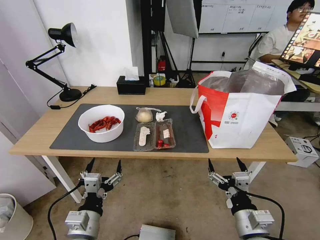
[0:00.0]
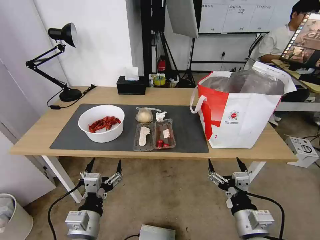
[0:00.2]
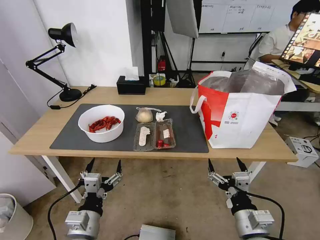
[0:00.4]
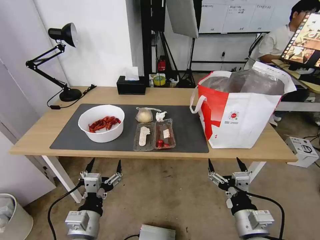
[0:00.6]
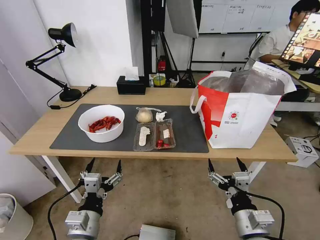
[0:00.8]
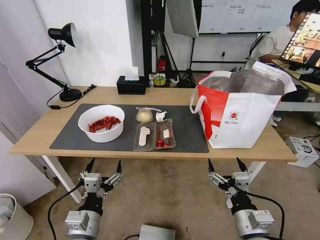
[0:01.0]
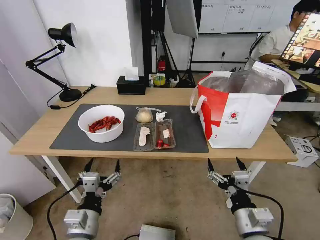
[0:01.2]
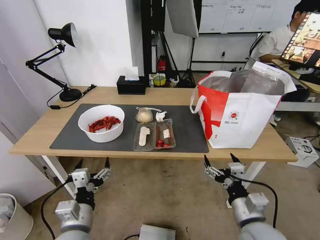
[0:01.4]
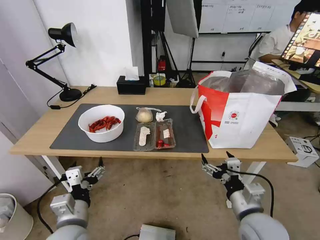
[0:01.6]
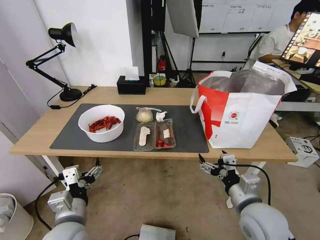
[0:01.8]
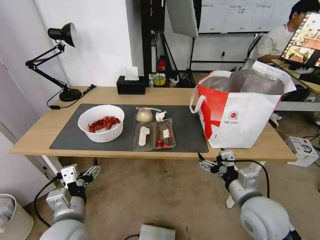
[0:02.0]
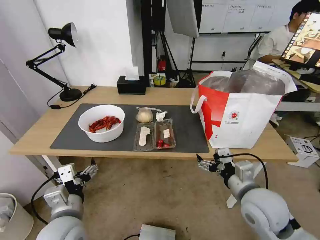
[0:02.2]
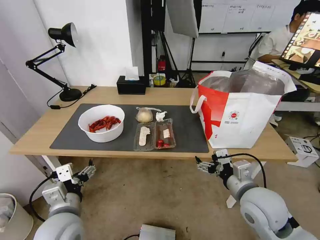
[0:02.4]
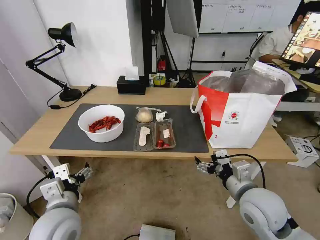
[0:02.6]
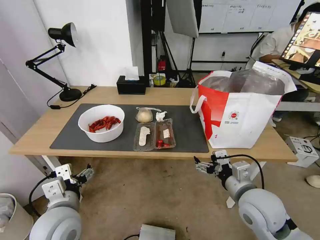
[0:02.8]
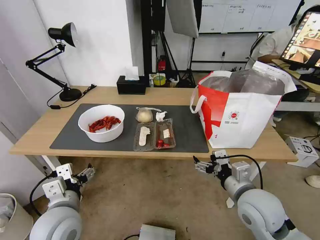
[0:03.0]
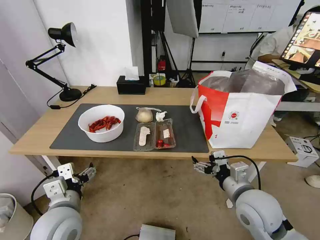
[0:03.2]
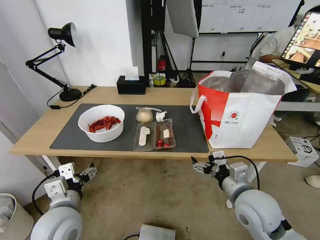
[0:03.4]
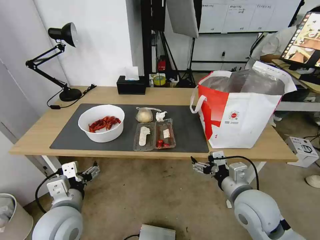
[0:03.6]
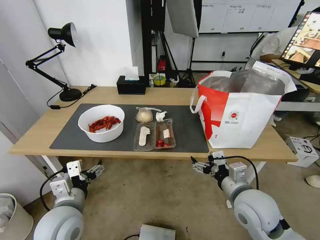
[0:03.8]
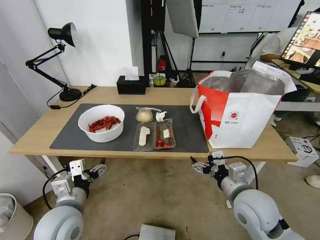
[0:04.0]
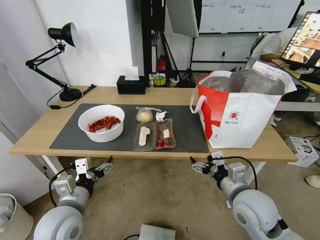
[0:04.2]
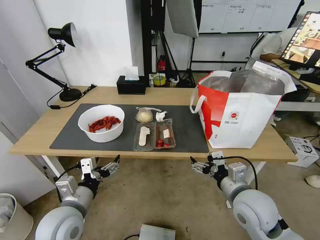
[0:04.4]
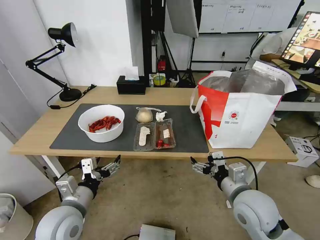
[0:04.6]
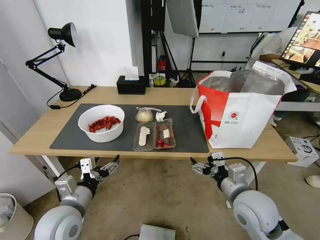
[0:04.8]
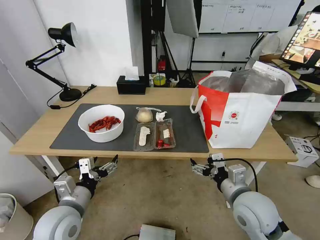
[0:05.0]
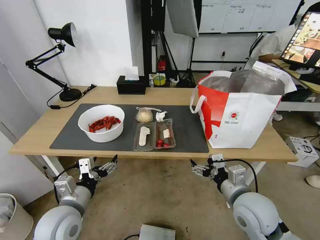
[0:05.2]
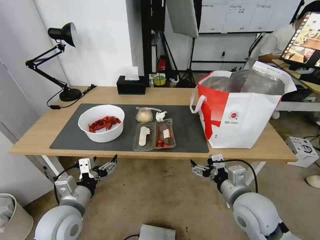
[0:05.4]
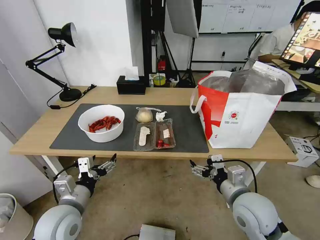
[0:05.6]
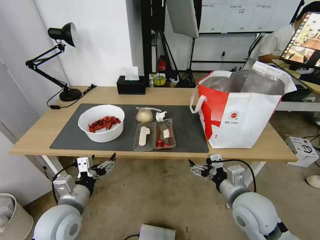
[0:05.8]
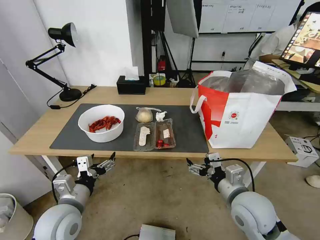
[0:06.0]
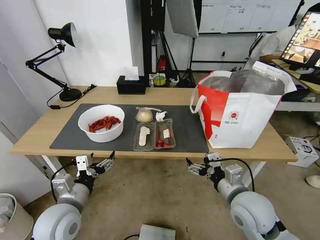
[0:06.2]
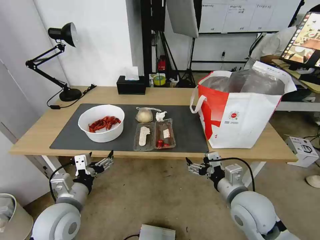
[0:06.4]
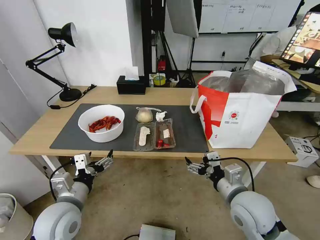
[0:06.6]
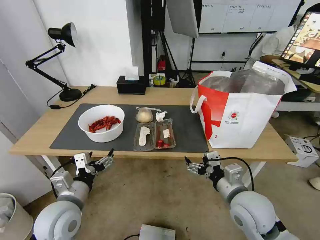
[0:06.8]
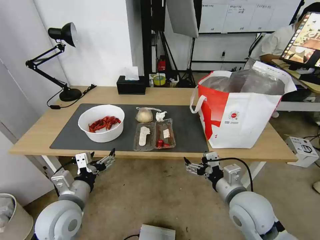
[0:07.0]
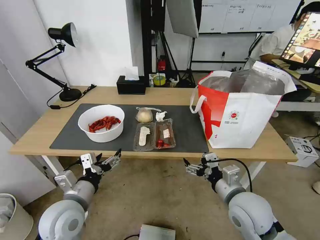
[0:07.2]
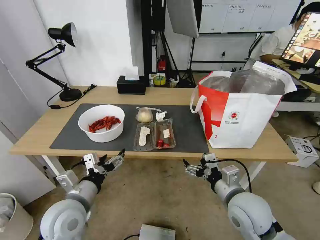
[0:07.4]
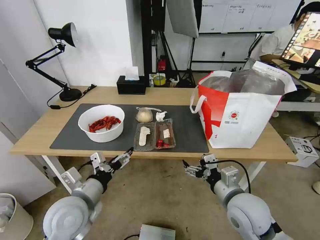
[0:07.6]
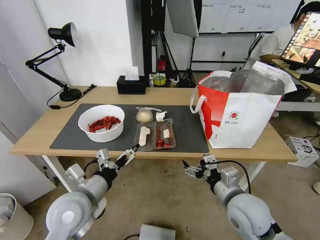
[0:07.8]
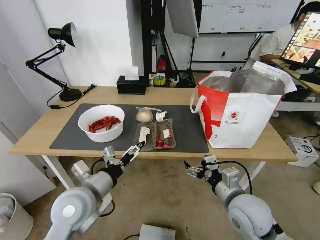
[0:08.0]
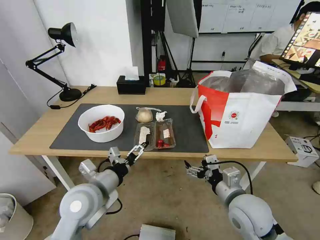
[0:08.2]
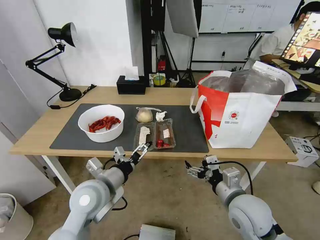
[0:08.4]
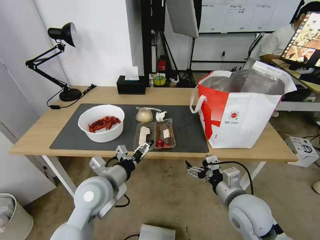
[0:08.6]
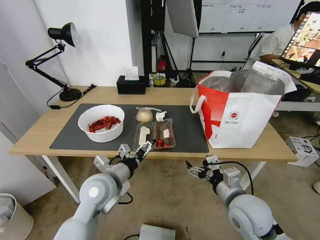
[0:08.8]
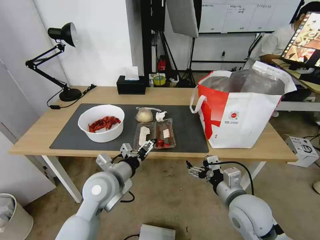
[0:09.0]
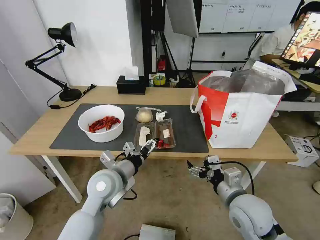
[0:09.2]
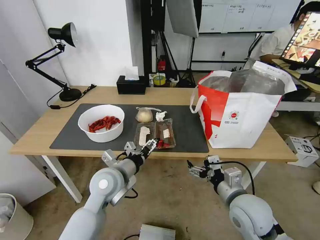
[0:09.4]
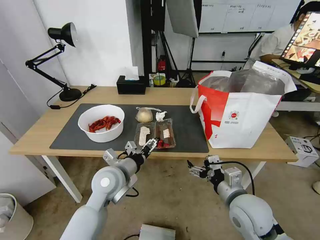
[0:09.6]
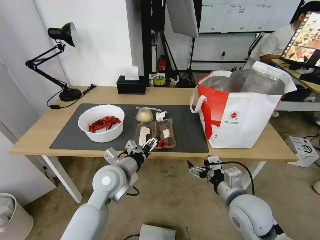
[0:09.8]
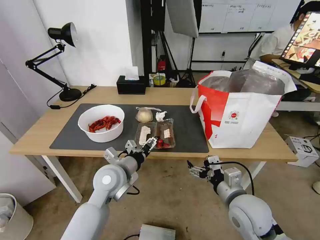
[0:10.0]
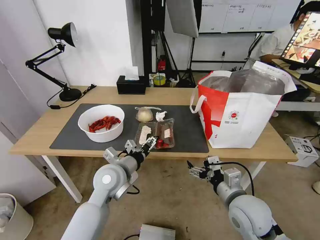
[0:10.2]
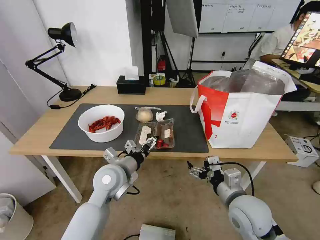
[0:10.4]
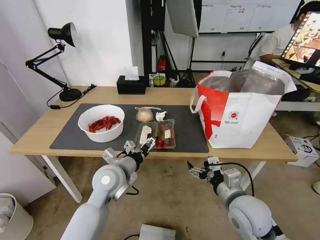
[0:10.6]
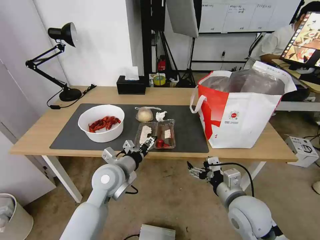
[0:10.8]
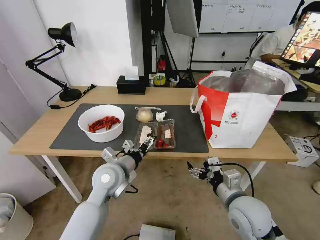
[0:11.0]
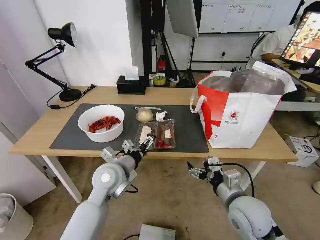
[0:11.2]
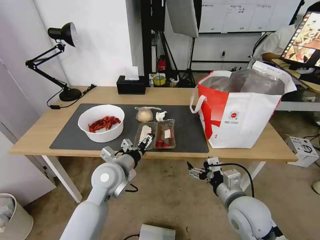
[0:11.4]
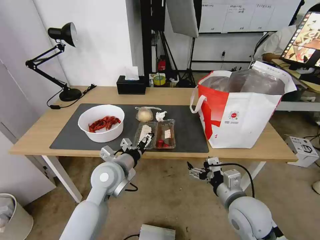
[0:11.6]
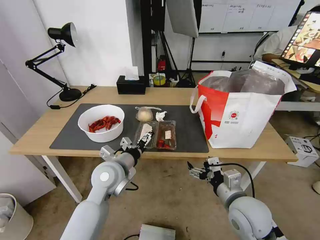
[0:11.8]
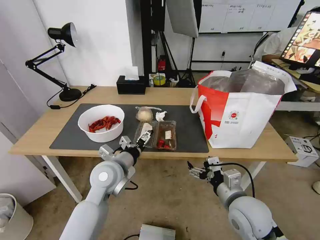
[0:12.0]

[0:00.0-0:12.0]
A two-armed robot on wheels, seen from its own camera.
Task of the whole recording: Pick up the trash from the table and place it into the takeout bag.
0:01.6 to 0:03.0: The right gripper changes place by some 5 cm. Meanwhile the left gripper moves approximately 5 cm.
0:04.4 to 0:06.0: There are only small adjustments of the grippers.
0:07.6 to 0:09.0: The left gripper heads forward and to the right, covering approximately 10 cm.
0:09.0 to 0:12.0: The grippers move only a little.

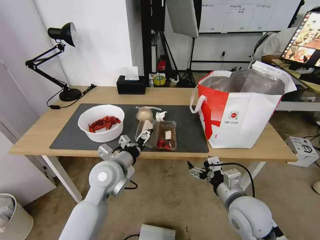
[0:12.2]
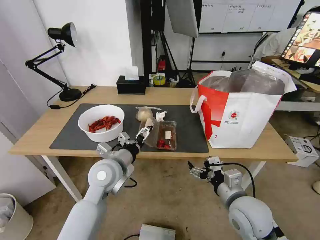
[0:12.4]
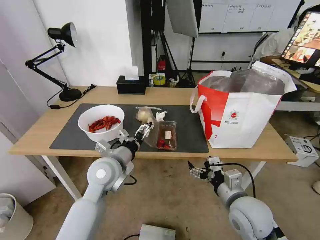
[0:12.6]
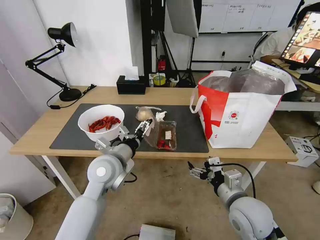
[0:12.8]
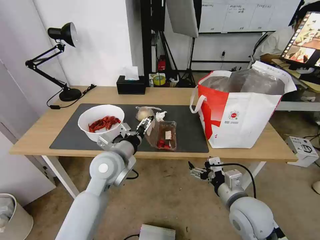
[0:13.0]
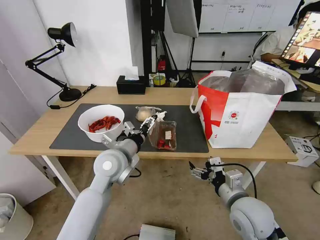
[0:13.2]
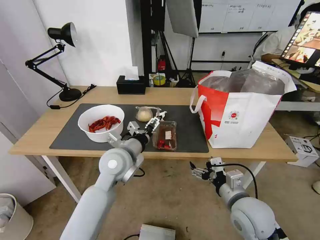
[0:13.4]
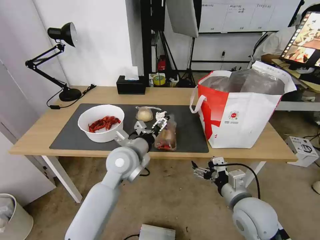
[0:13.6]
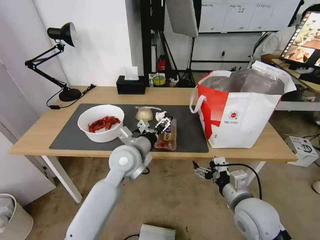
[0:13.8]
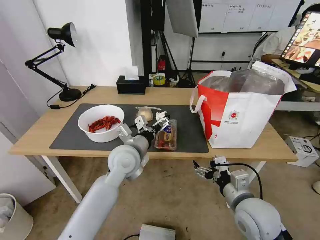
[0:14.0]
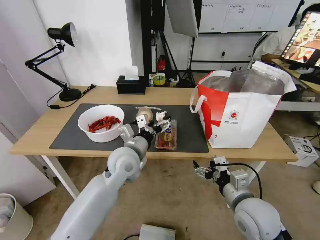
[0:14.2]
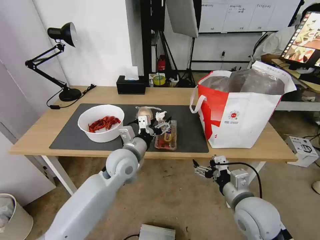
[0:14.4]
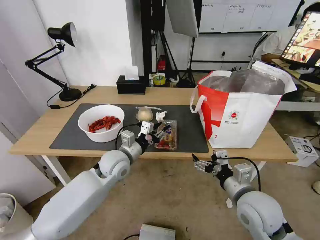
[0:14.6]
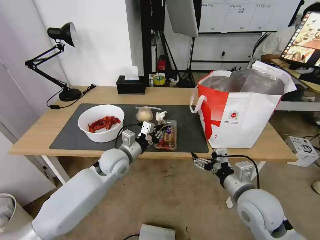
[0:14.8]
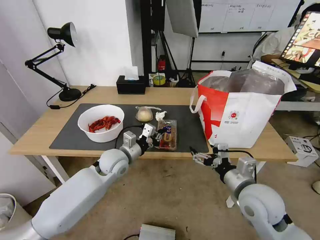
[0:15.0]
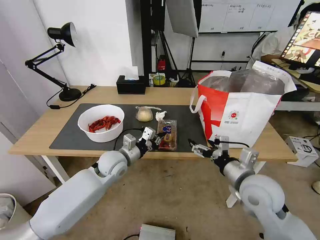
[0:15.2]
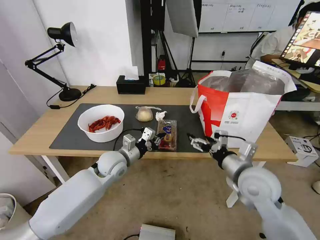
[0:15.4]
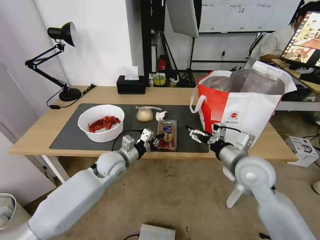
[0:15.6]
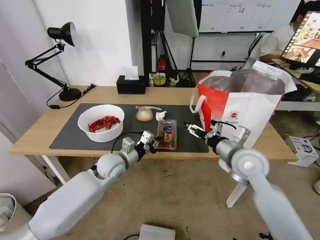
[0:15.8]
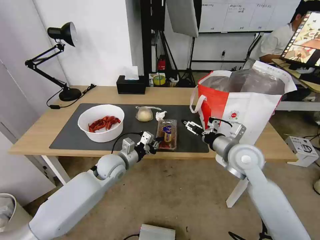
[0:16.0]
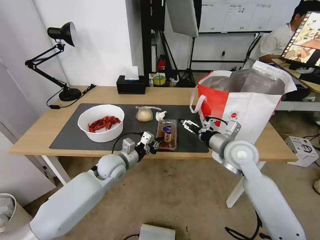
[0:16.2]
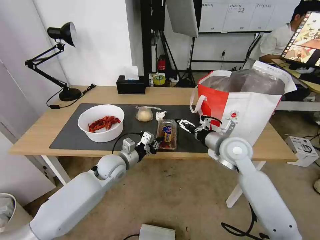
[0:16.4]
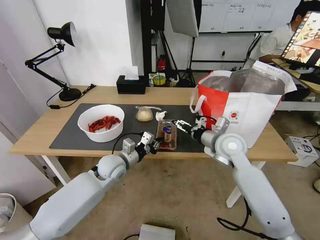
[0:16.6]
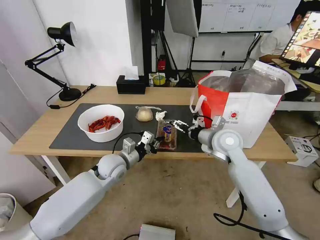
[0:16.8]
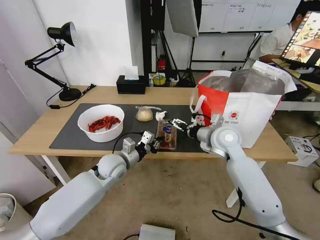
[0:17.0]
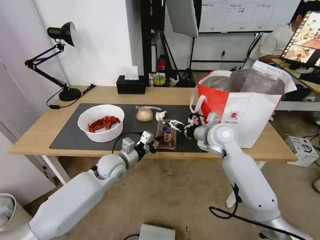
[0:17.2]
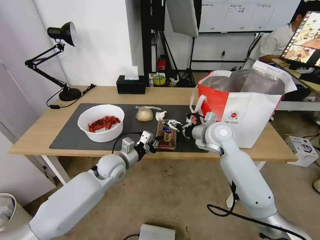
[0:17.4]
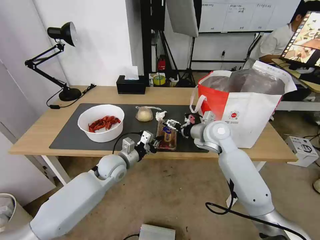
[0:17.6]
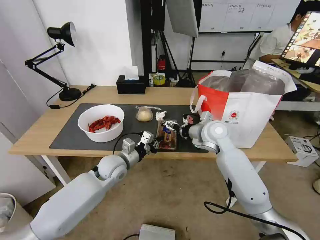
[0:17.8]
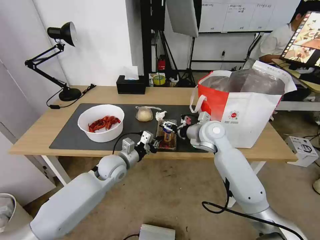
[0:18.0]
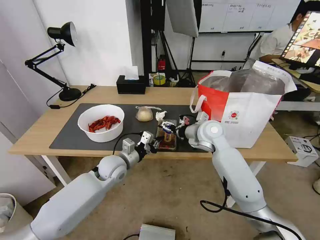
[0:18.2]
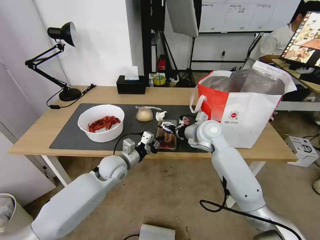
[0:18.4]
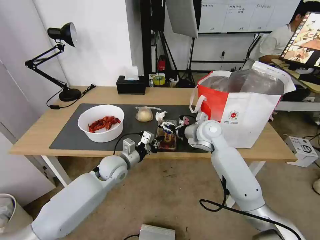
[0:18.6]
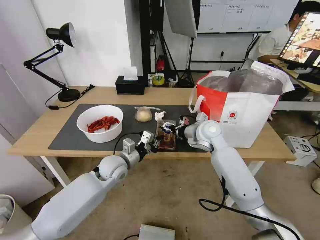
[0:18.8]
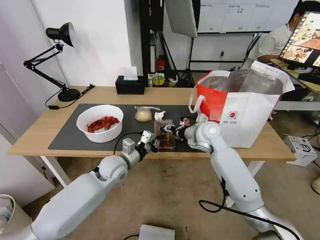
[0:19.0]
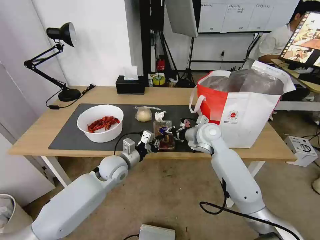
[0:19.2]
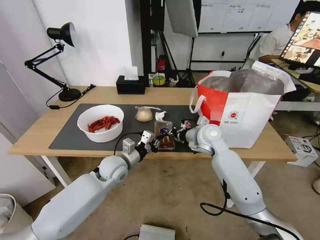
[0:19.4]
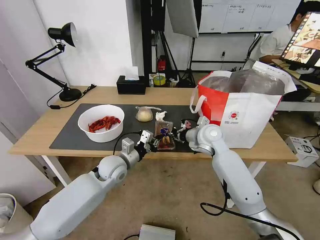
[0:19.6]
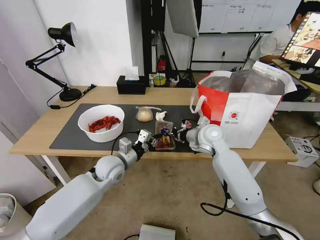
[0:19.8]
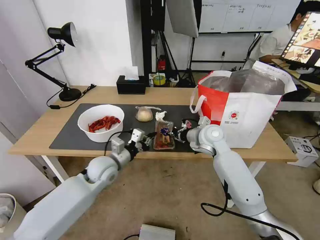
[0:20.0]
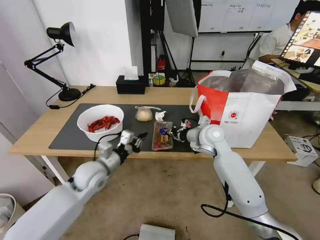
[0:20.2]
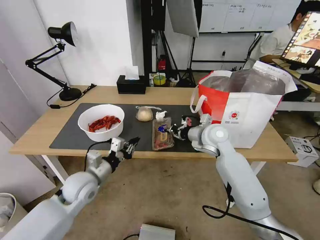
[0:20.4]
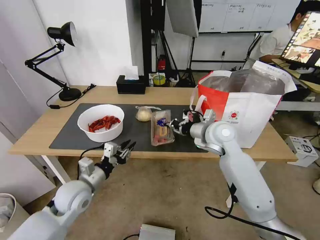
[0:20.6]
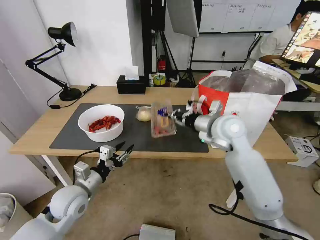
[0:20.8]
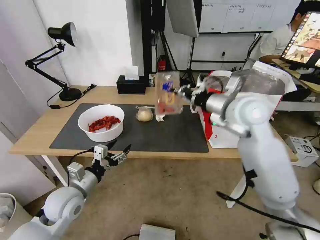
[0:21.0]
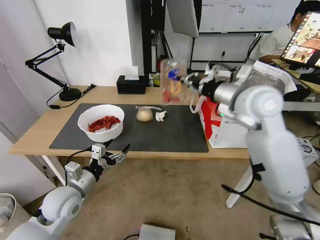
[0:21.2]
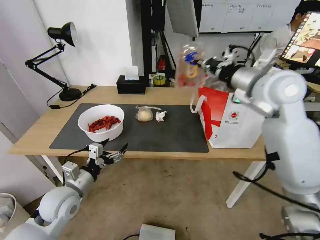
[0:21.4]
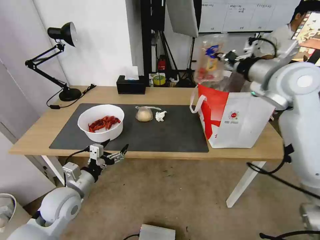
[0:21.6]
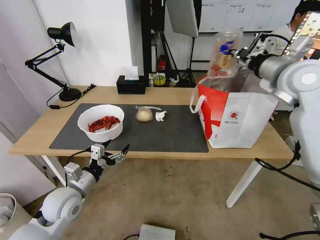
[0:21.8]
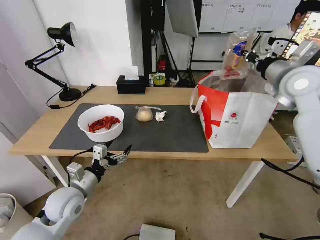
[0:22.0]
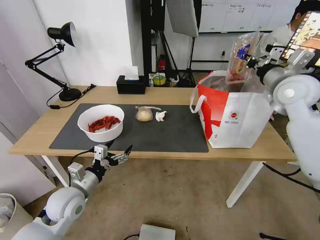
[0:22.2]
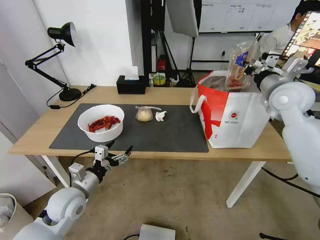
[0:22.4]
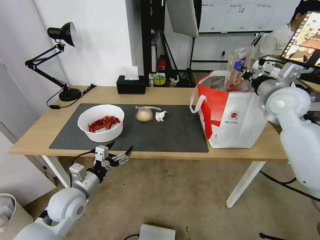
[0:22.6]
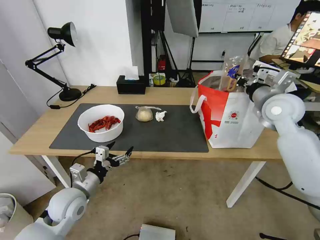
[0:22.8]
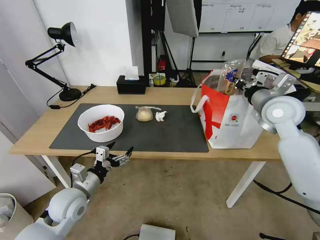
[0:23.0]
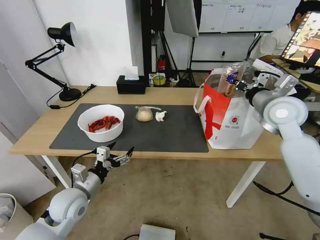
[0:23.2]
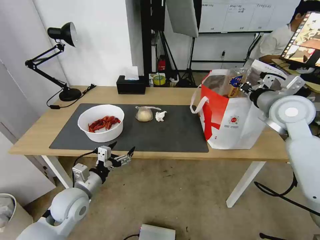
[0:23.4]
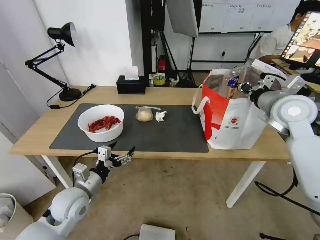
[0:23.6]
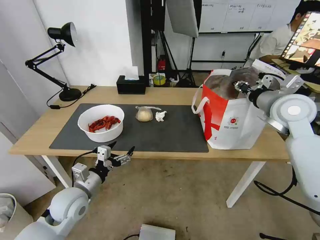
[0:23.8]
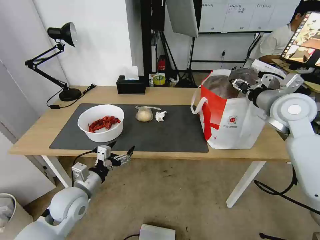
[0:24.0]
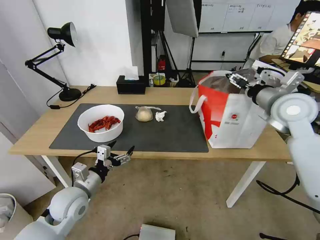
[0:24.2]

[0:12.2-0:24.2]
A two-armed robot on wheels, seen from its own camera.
Task of the whole recording: Pick up the trash from the table and place it into the takeout bag.
0:12.2 to 0:13.8: The left gripper travels to the right by approximately 5 cm.
0:13.8 to 0:15.2: The left gripper travels downward and to the left by roughly 10 cm, and closes. The right gripper changes place by about 5 cm.
0:15.2 to 0:16.6: The right gripper travels forward by some 15 cm.
0:16.6 to 0:18.2: The right gripper moves forward, some 5 cm.
0:18.2 to 0:19.8: The right gripper closes up.
0:19.8 to 0:21.2: The right gripper travels upward by approximately 20 cm. The left gripper moves backward and to the left, approximately 15 cm, and opens its fingers.
0:21.2 to 0:22.6: The right gripper shifts approximately 15 cm to the right and downward.
0:22.6 to 0:24.2: The right gripper opens.
